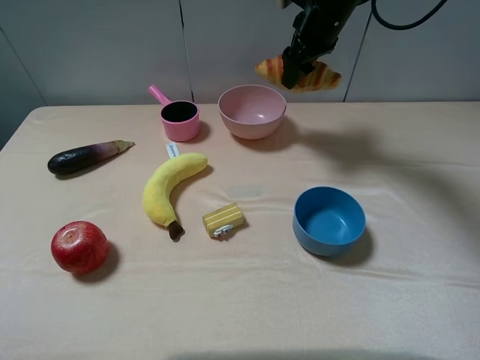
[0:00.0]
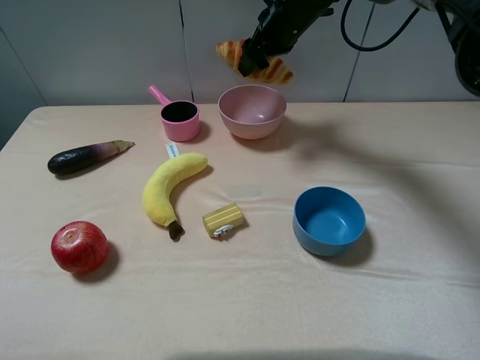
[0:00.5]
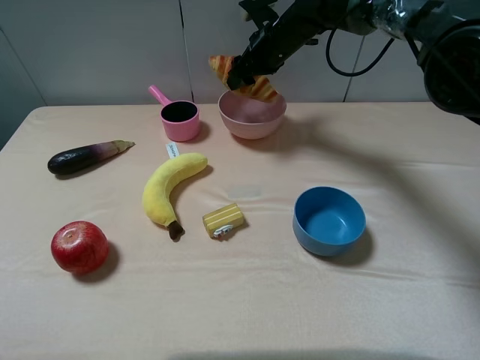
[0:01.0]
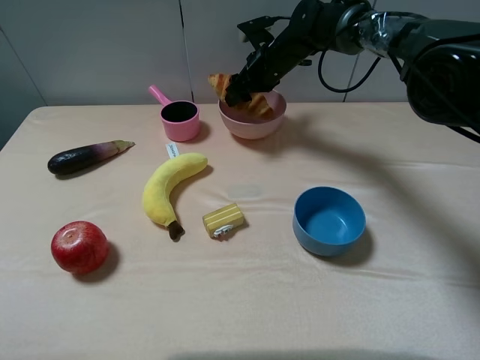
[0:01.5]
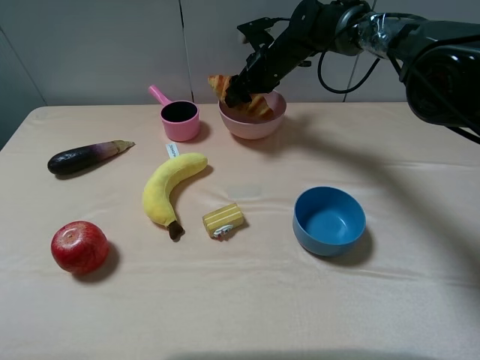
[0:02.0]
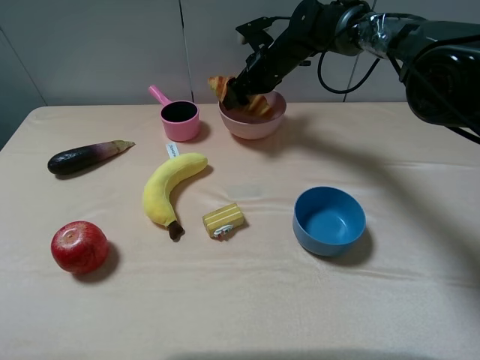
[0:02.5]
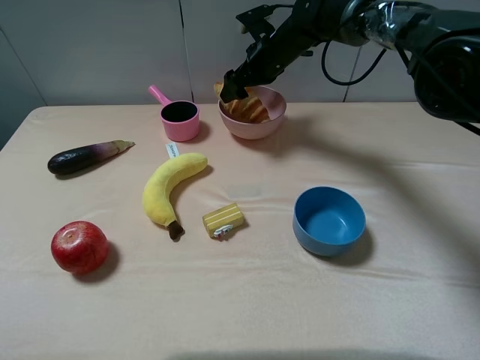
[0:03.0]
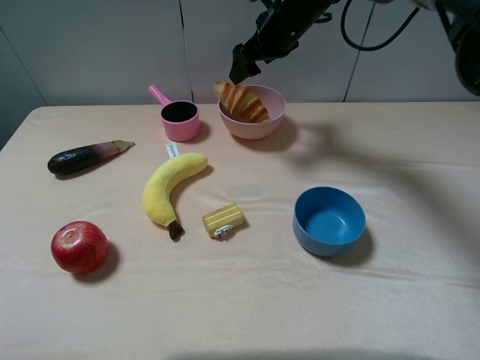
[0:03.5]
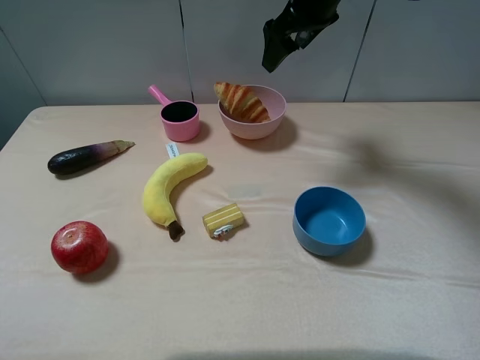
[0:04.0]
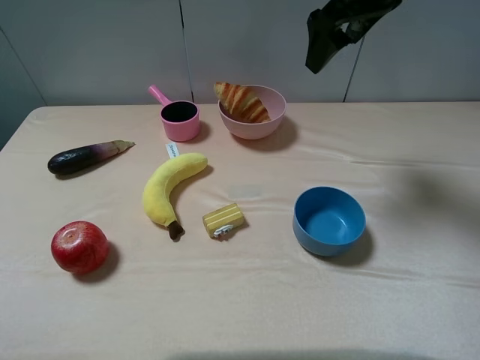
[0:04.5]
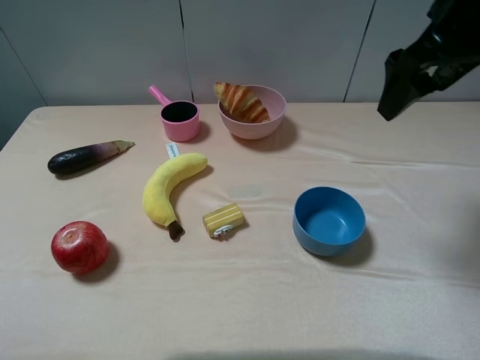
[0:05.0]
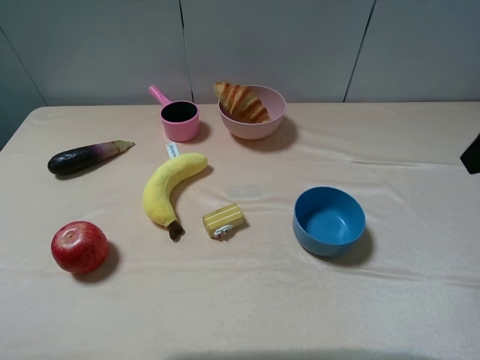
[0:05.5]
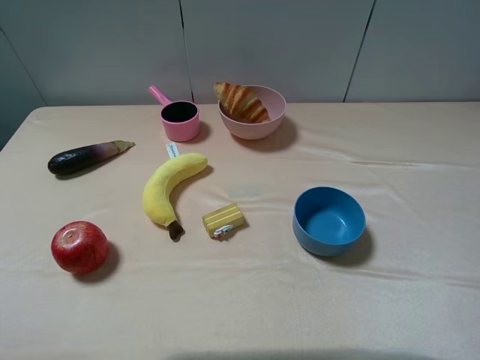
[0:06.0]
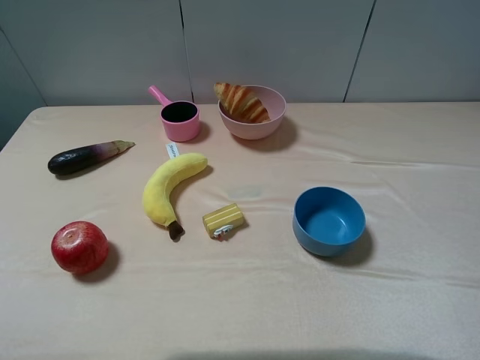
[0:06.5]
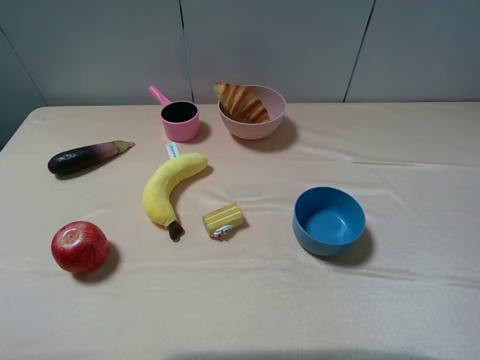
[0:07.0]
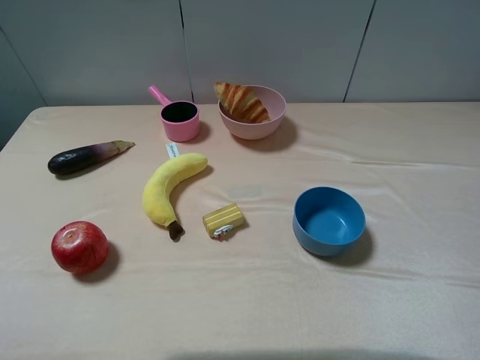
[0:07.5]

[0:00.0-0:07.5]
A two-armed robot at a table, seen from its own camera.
Task of the whole recording: pick up an item with a gripper and place it in a random container on the table.
Step, 0:00.0 to 0:02.5: Place the croissant into the pink bowl with the right gripper.
0:00.0 to 0:02.0: The right gripper shifts roughly 10 cm downward and to the left.
0:02.0 to 0:04.0: The right gripper heads upward and backward, covering roughly 15 cm, and opens.
0:04.0 to 0:05.5: The right gripper moves backward and to the right, roughly 30 cm.
